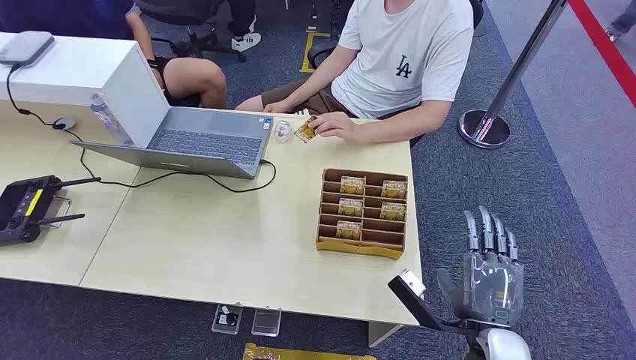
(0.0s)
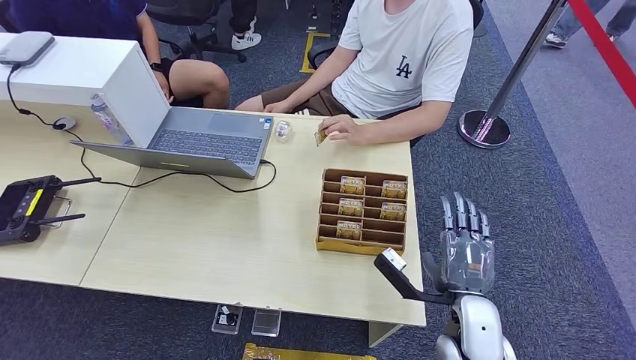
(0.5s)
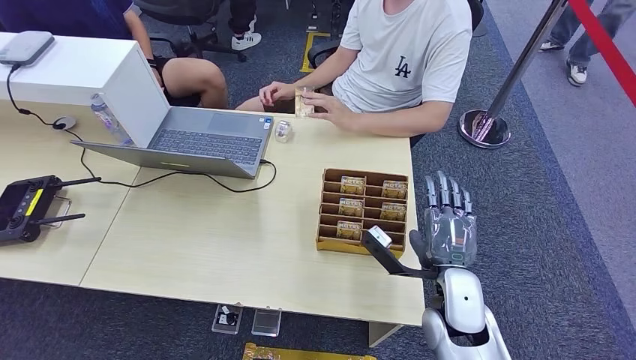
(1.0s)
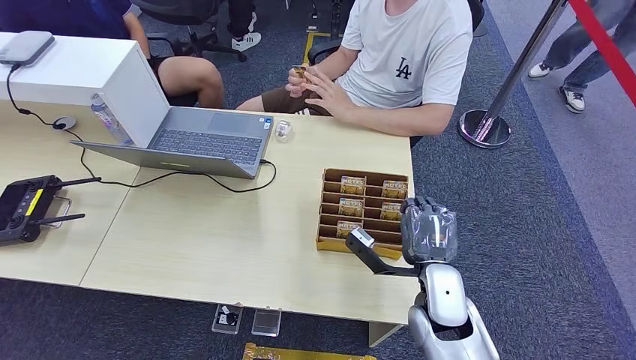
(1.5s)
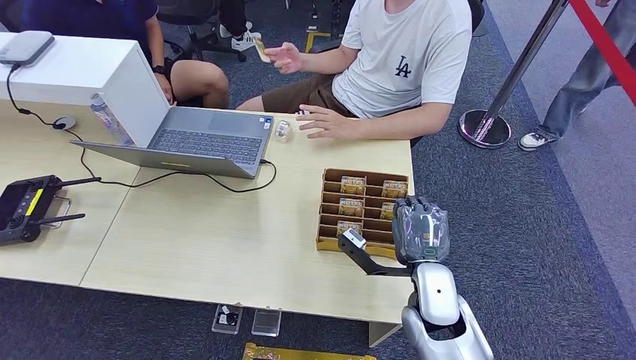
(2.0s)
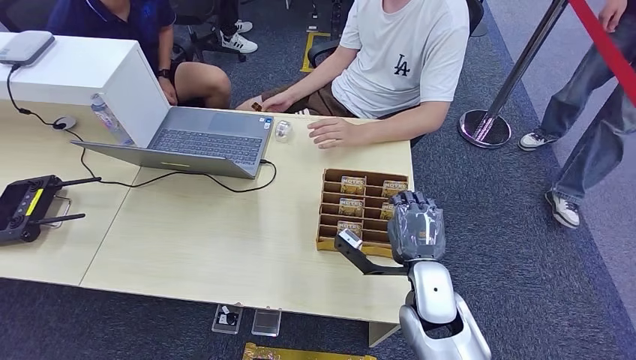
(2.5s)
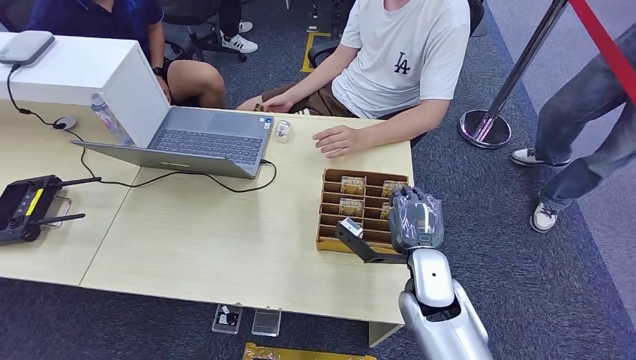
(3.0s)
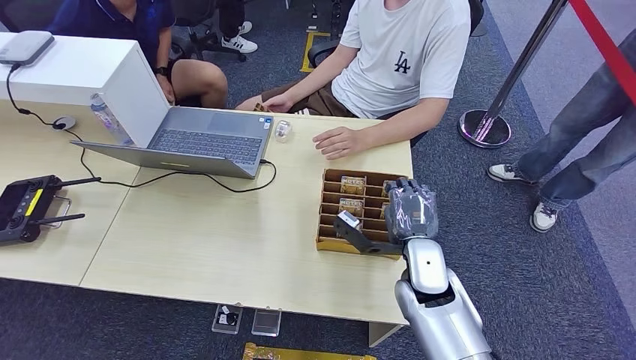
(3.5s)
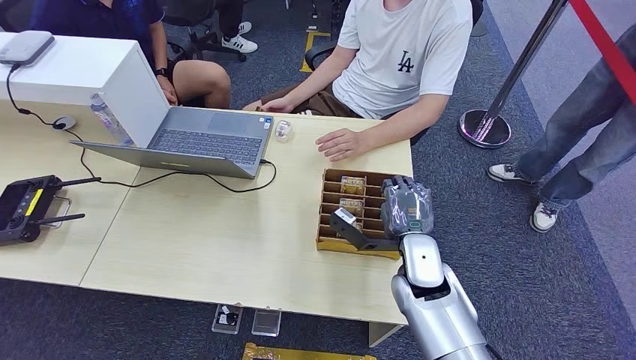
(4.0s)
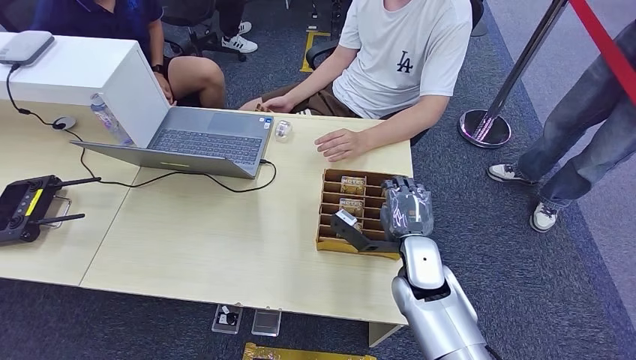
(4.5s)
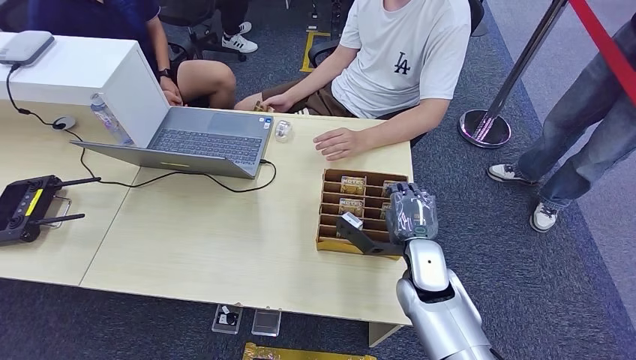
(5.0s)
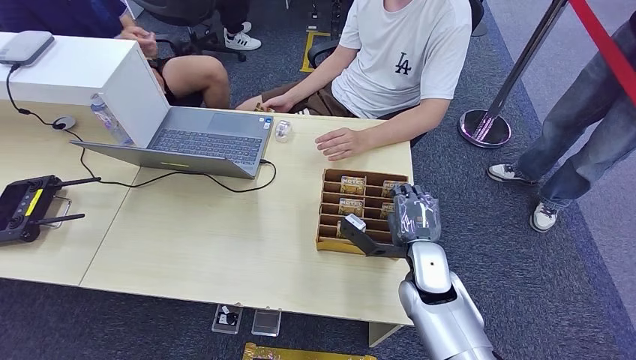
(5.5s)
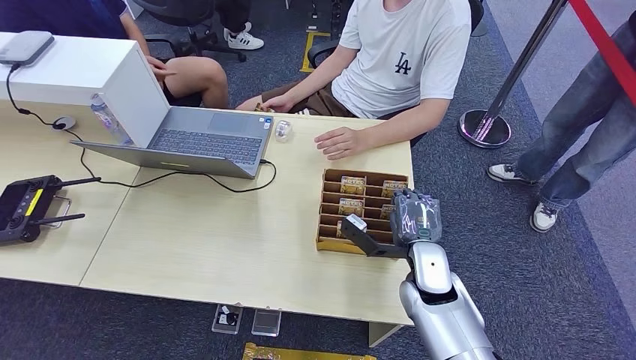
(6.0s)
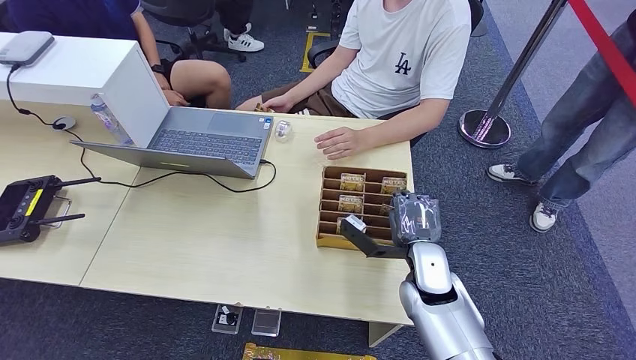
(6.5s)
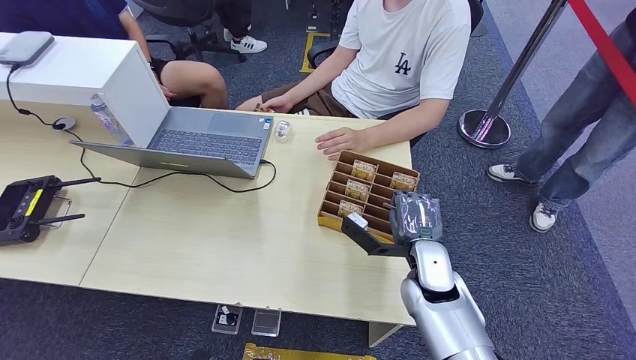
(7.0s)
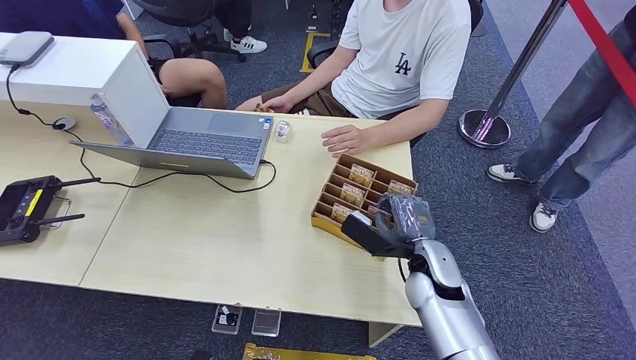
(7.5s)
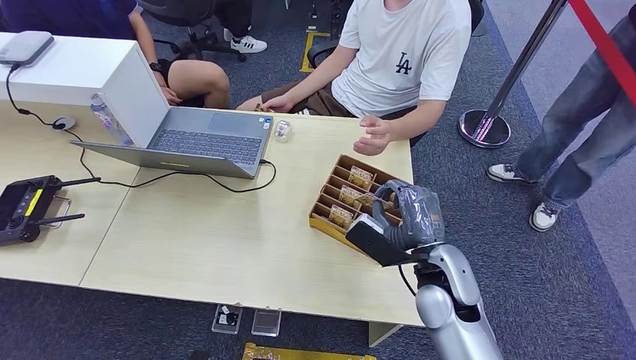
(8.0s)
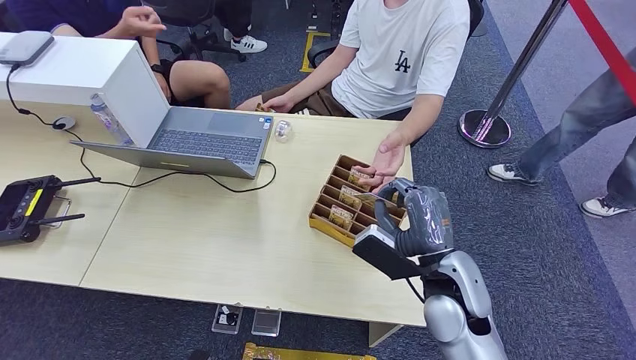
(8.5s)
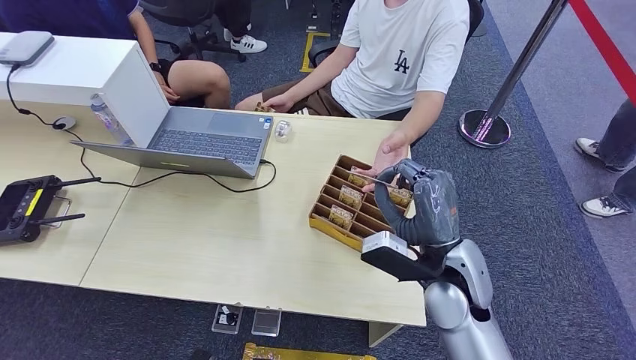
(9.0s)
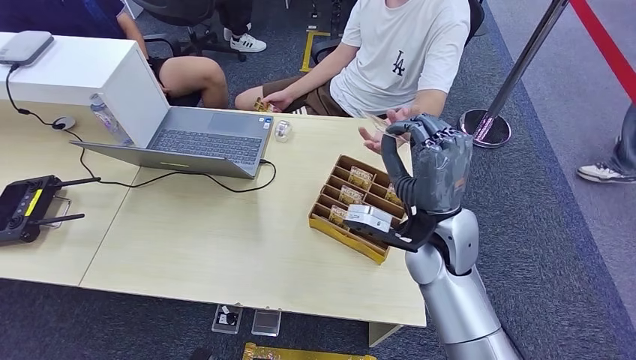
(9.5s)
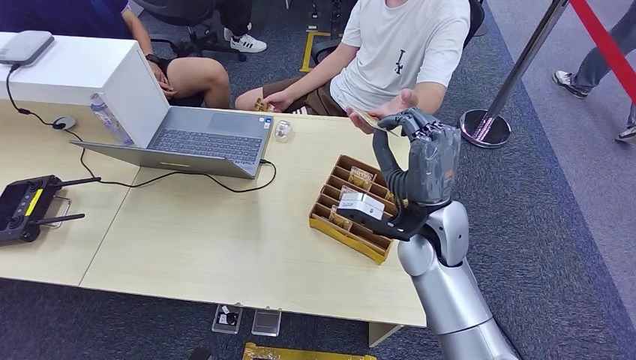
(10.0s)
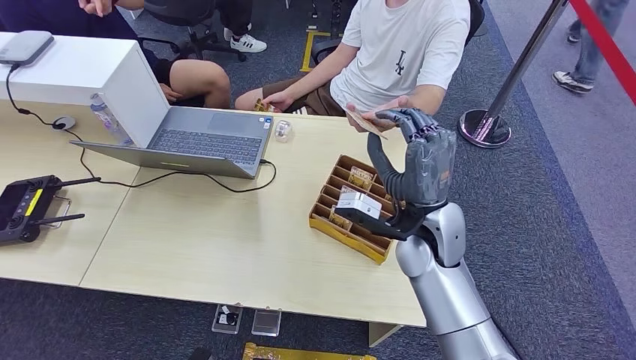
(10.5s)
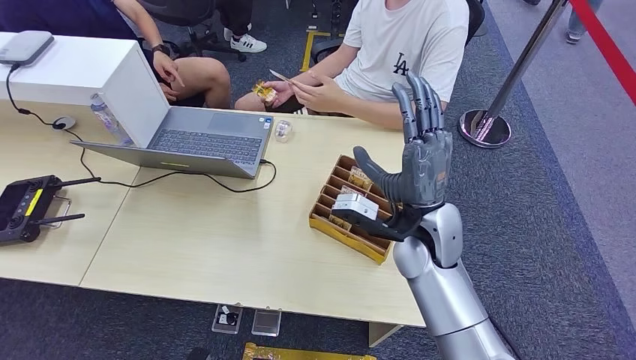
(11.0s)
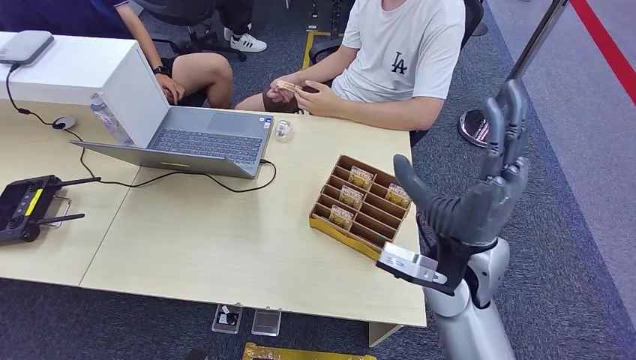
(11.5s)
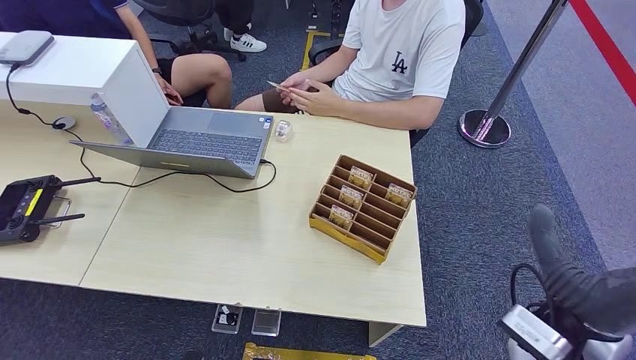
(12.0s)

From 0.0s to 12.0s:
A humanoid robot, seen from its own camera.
Step, from 0.0s to 7.5s: Pick up the room card from the card holder.
Step, from 8.0s to 12.0s: Hand the room card to the target.
From 2.0s to 4.0s: The right hand moves approximately 5 cm.
From 4.0s to 6.0s: The hands stay close to where they were, moving slightly.
From 6.0s to 8.0s: The right hand is displaced upward by some 5 cm.
From 8.0s to 10.0s: The right hand travels upward and forward by roughly 10 cm.
From 10.0s to 12.0s: The right hand moves to the right and backward, roughly 20 cm.
